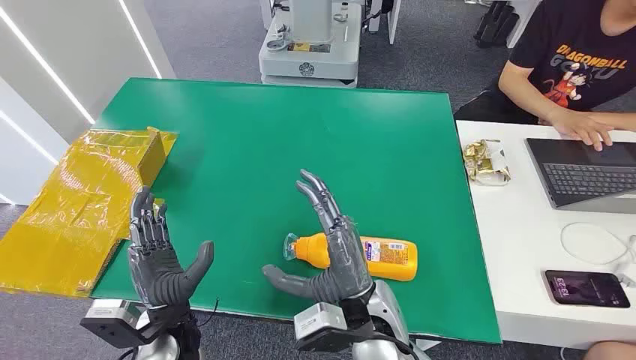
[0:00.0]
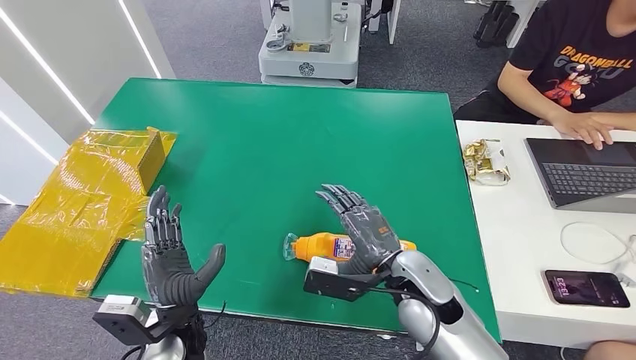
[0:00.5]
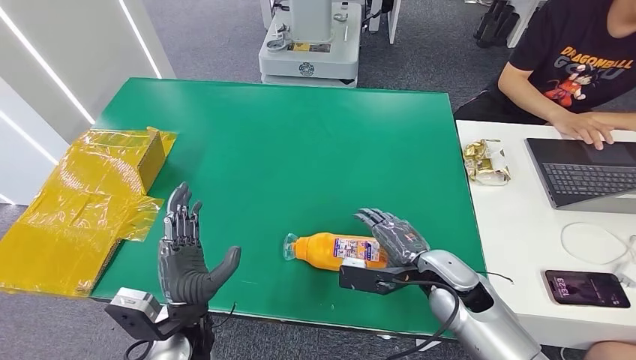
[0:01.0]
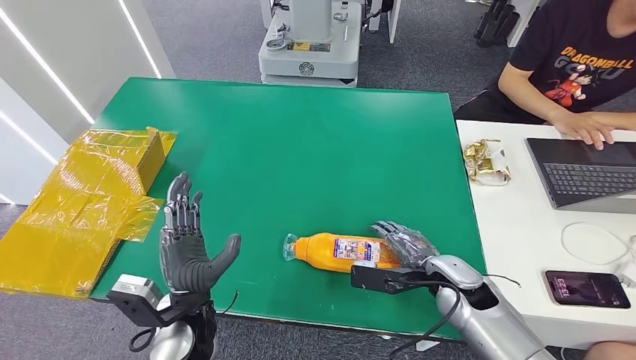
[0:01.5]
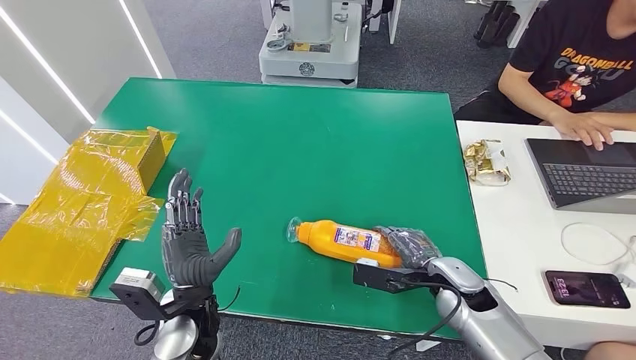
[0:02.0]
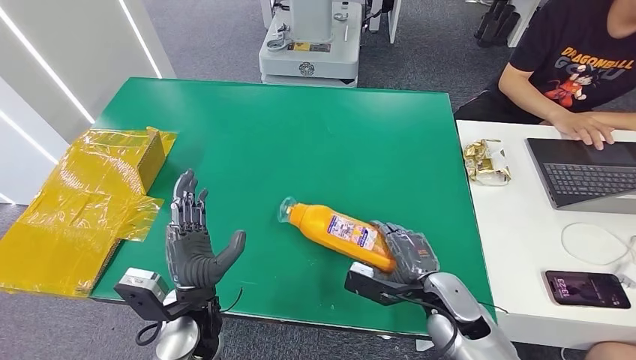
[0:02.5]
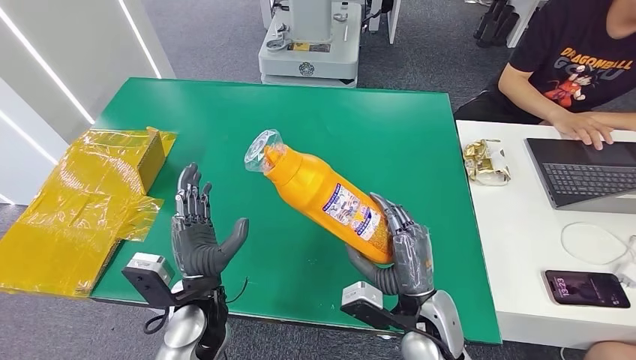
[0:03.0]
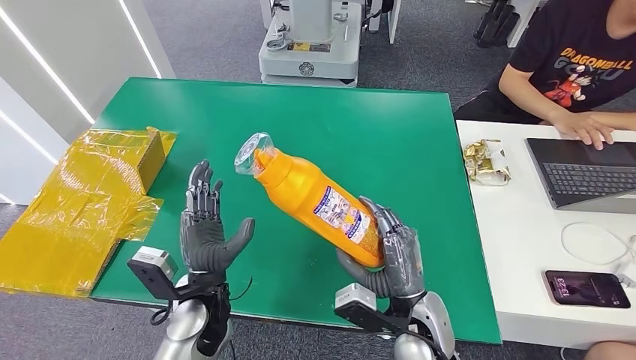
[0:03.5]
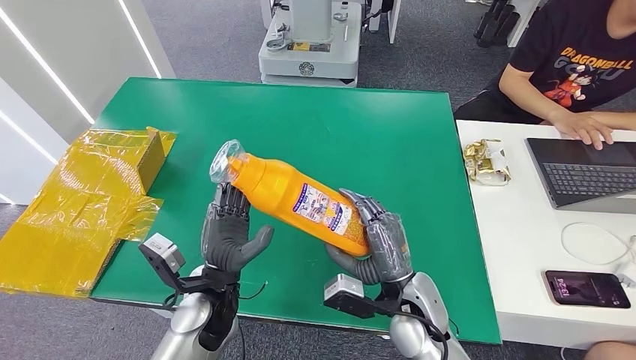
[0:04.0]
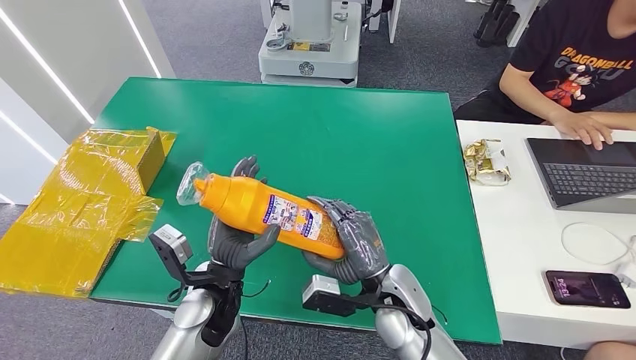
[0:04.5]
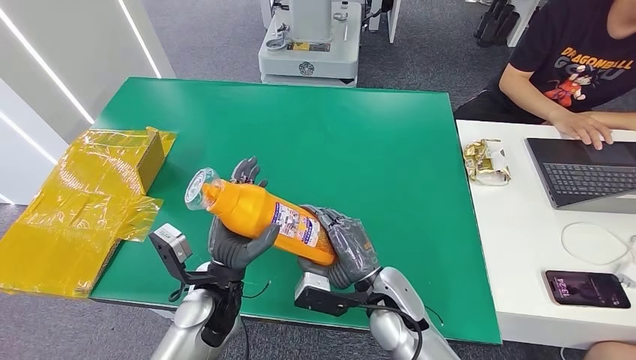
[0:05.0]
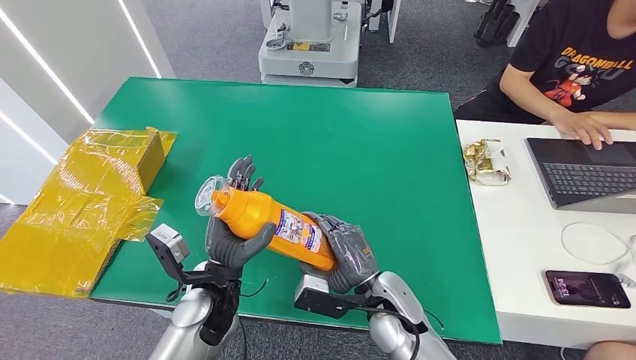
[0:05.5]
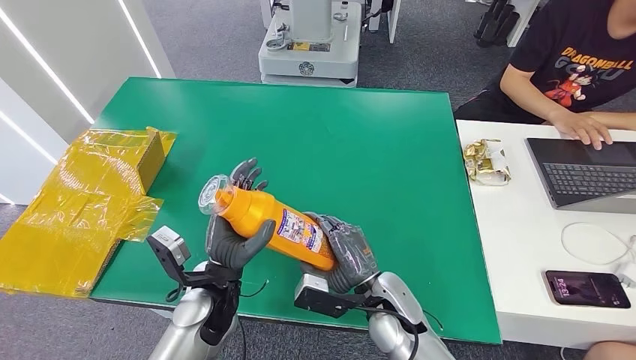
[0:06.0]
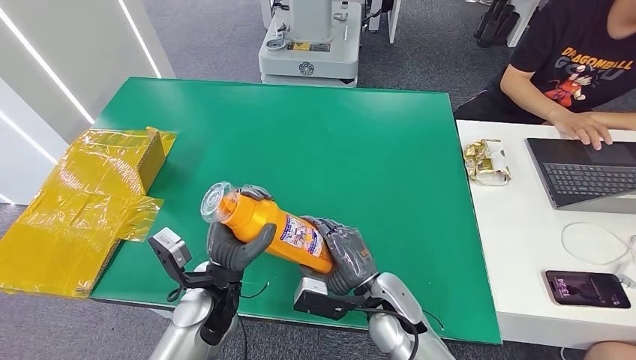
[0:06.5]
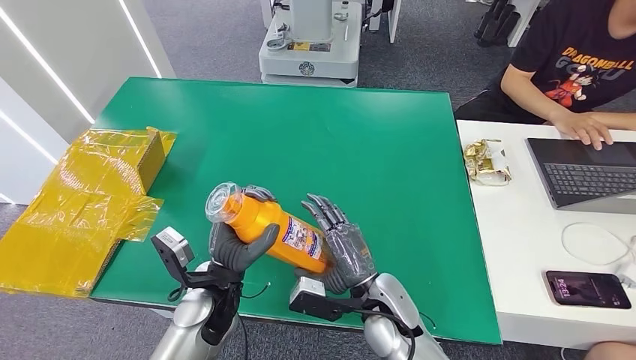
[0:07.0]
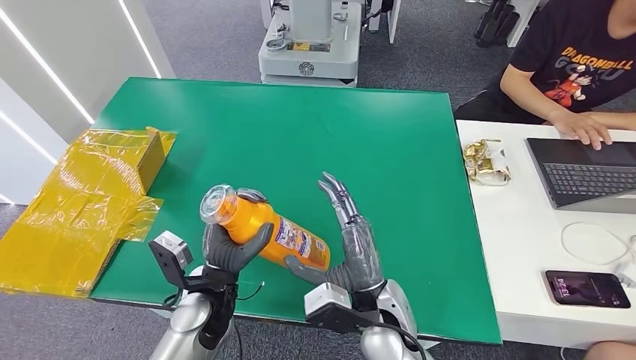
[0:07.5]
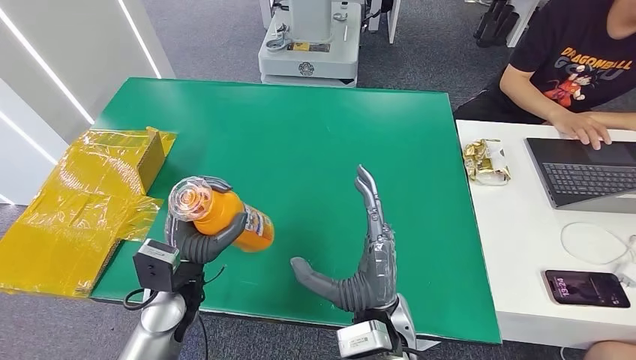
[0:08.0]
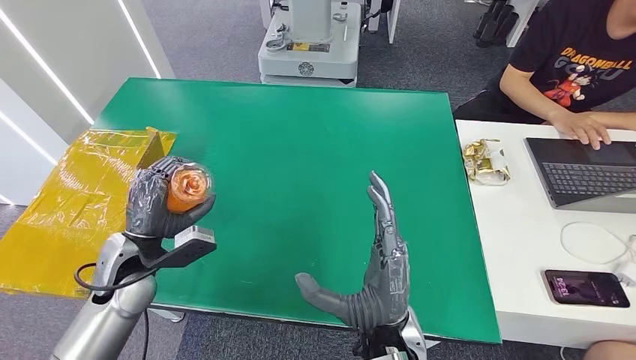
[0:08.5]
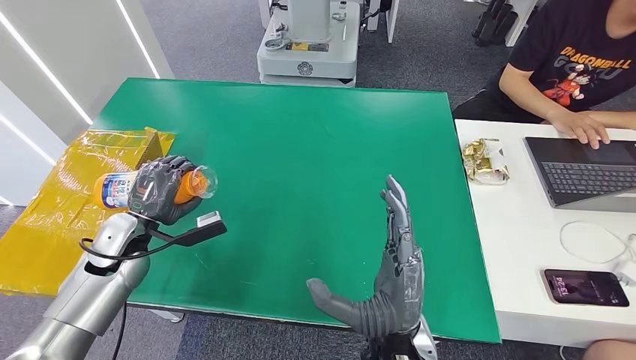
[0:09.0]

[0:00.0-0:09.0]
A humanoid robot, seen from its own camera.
Step, 0.0 to 3.5 s: Pick up the bottle from the table.
2.0 to 4.5 s: The right hand heads to the left, covering some 10 cm.
4.5 to 7.0 s: The hands make only small movements.

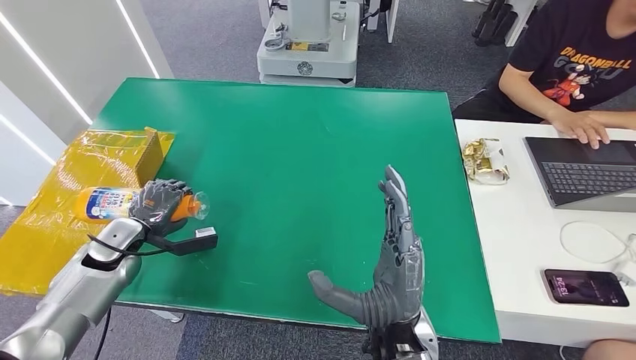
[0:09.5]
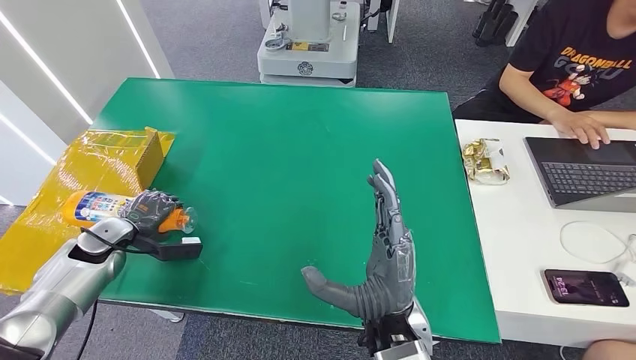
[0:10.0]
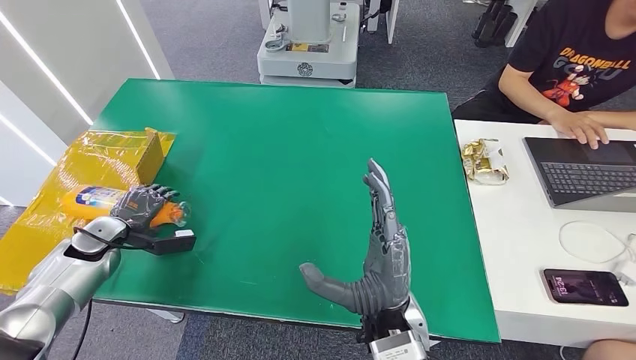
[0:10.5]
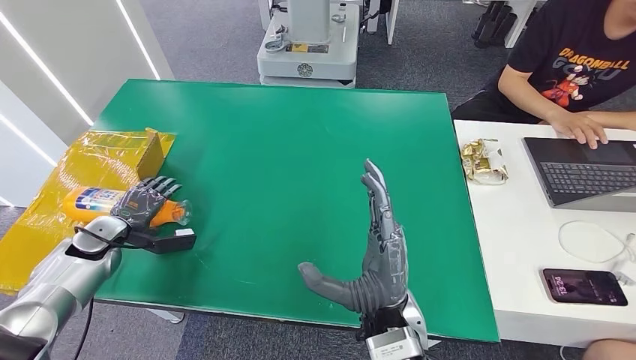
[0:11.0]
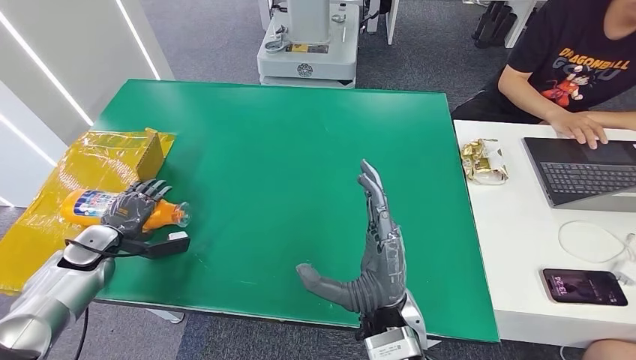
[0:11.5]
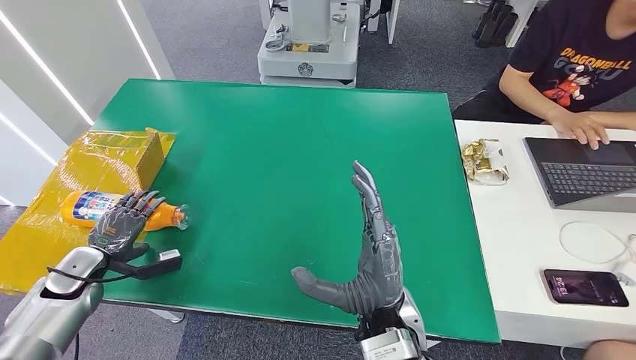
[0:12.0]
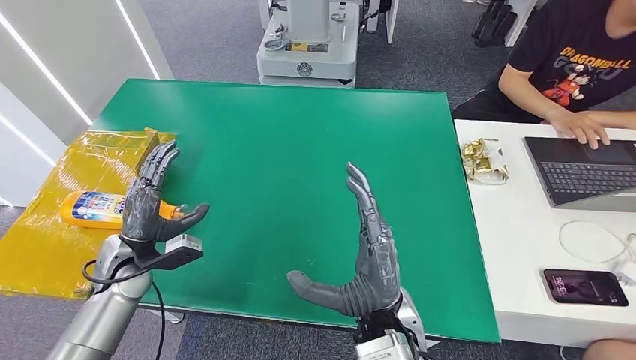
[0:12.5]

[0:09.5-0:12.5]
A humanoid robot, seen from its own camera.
Step, 9.5 to 12.5 s: Turn the bottle to the front side.
9.5 to 11.0 s: The left hand travels to the left by roughly 5 cm.
11.0 to 12.5 s: The left hand shifts roughly 10 cm to the right.

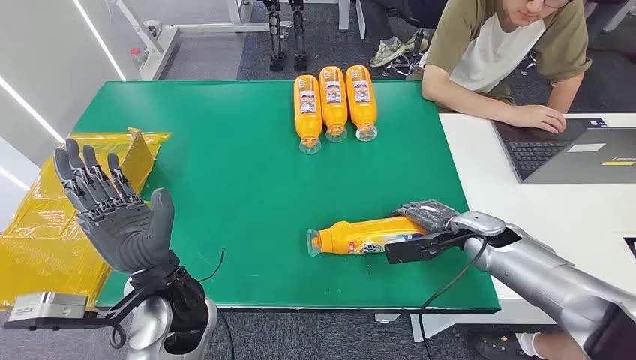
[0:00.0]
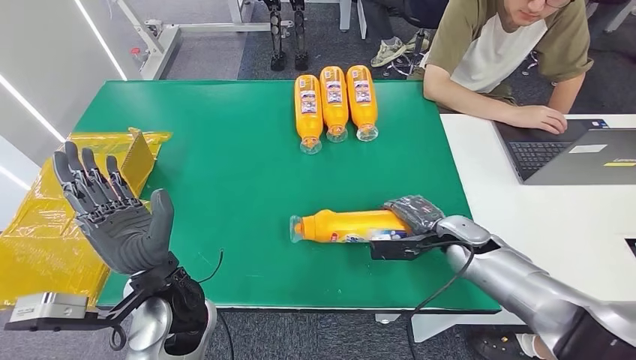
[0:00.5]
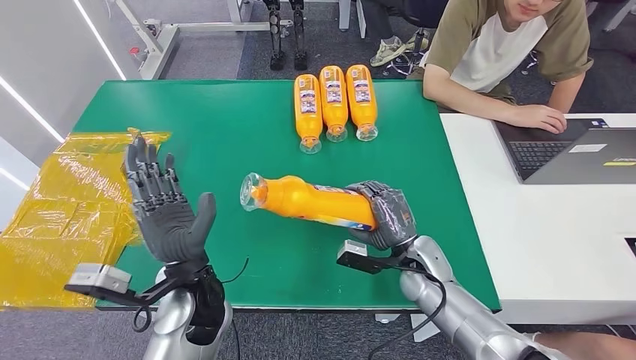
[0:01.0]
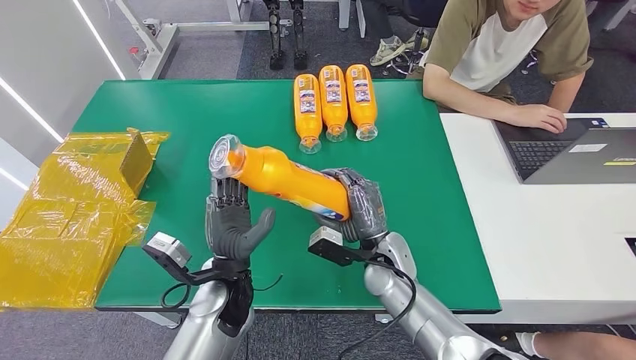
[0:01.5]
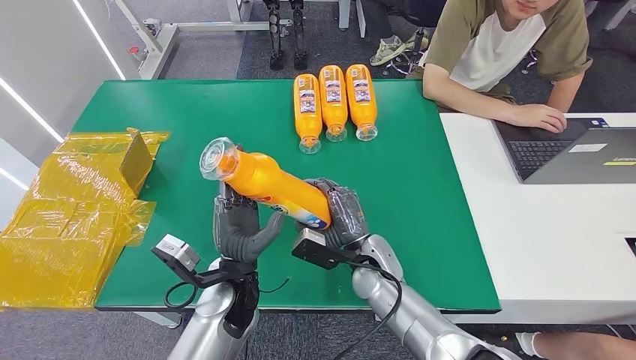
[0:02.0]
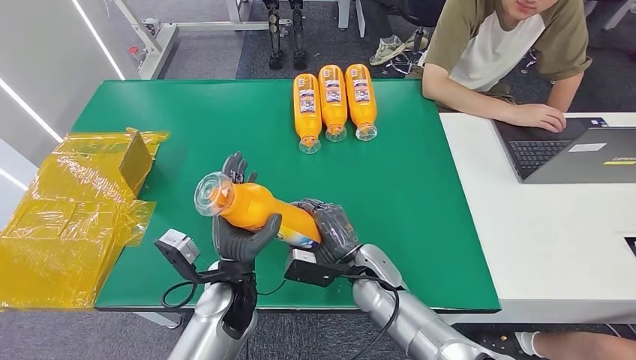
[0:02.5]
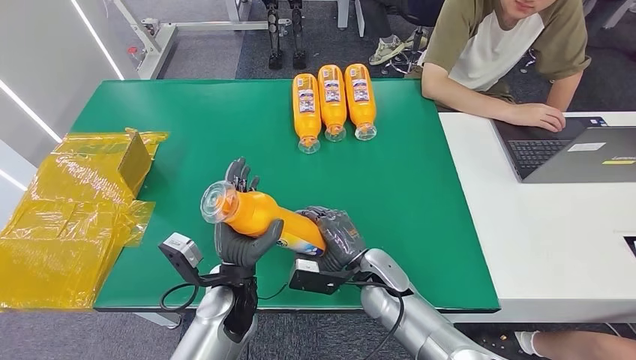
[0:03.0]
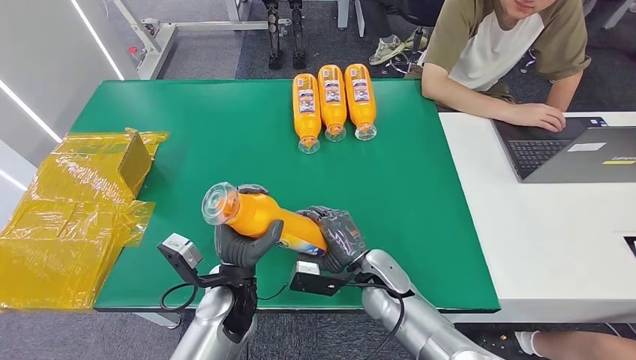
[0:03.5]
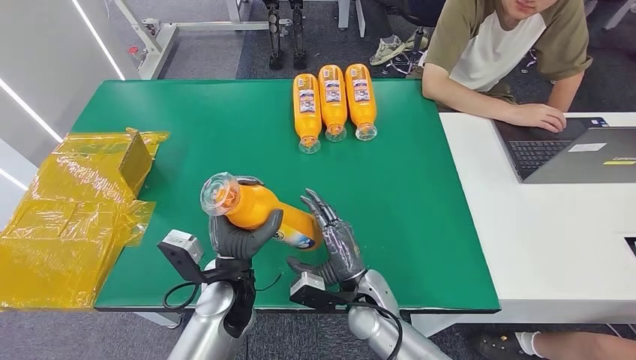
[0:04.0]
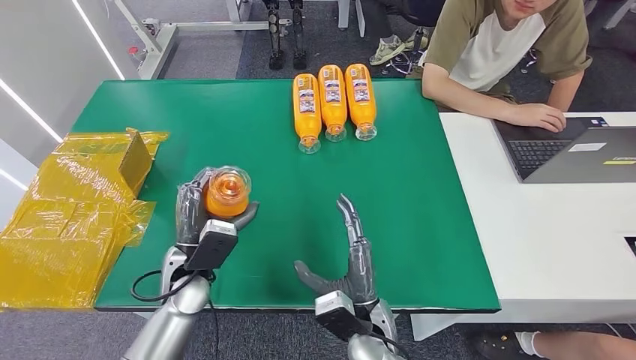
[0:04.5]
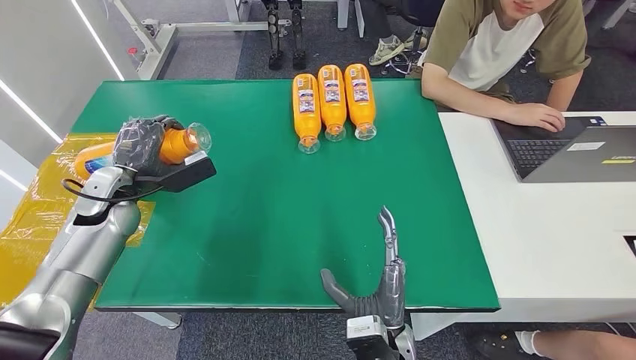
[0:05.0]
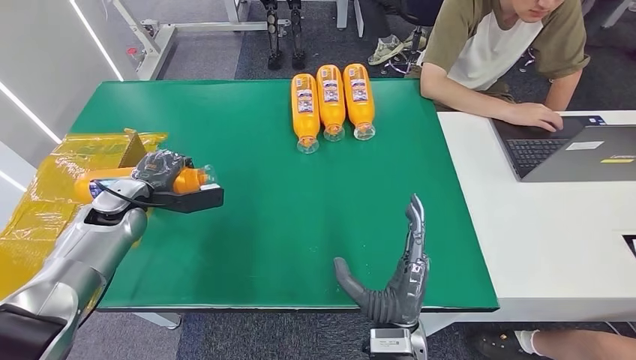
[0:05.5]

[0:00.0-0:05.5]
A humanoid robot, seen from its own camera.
Step, 0.0 to 2.5 s: Pick up the bottle from the table.
Step, 3.0 to 5.5 s: Turn the bottle to the front side.
2.0 to 3.5 s: There are only small adjustments of the hands.
3.5 to 5.5 s: The right hand moves backward and upward, approximately 15 cm; the left hand heads to the left and forward, covering approximately 35 cm.

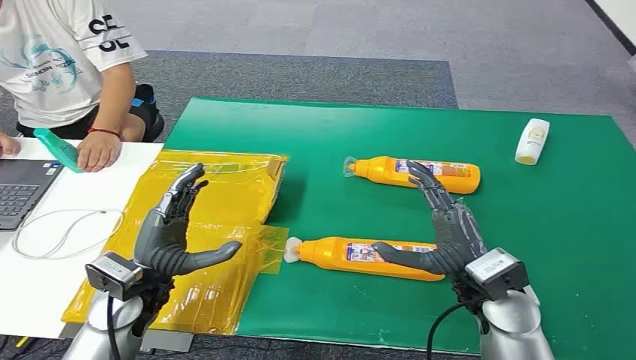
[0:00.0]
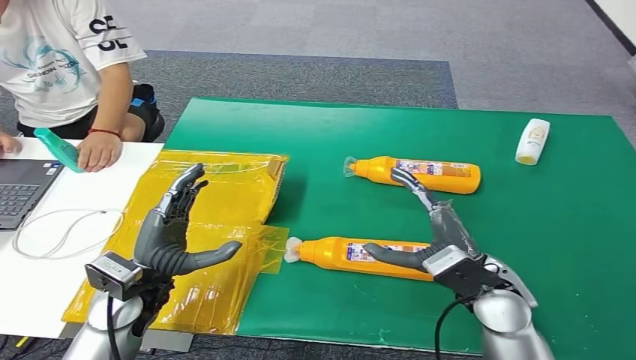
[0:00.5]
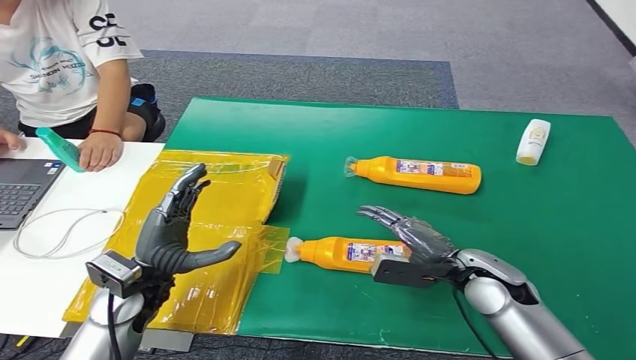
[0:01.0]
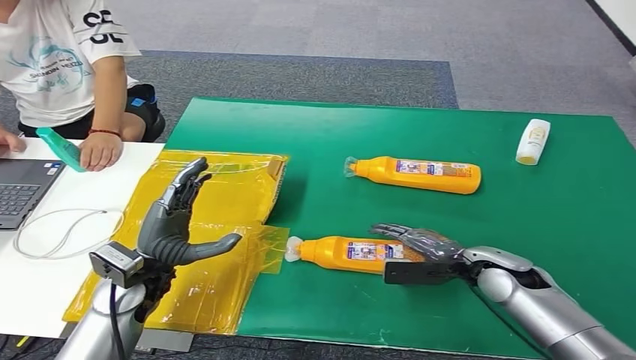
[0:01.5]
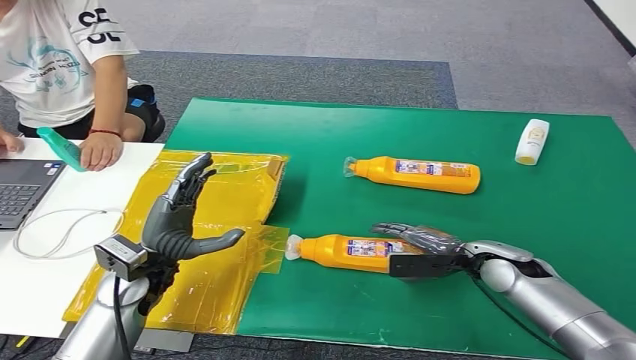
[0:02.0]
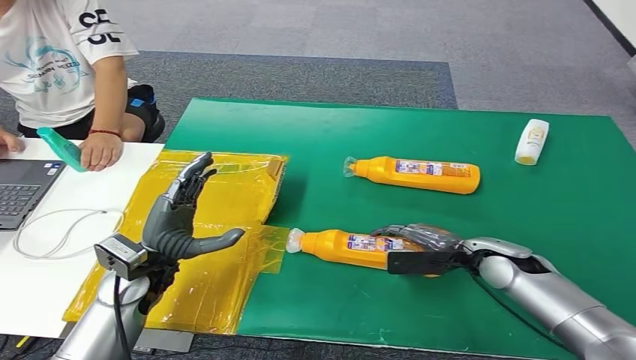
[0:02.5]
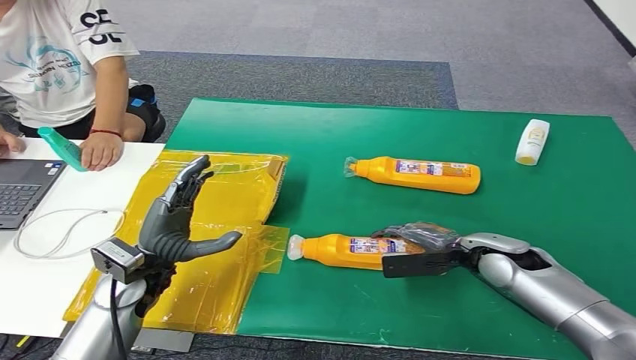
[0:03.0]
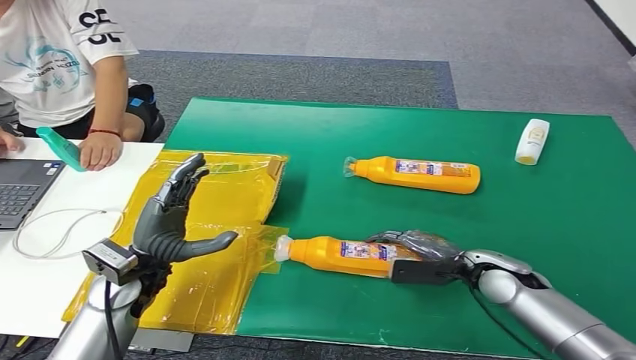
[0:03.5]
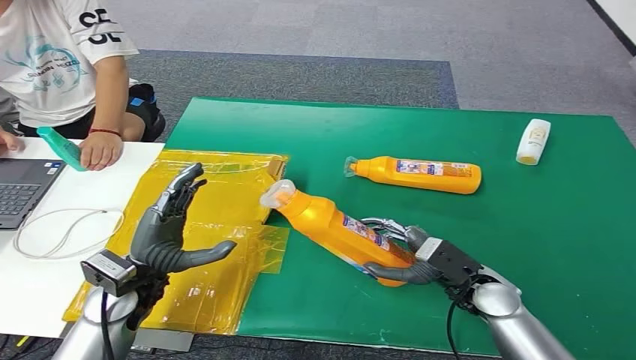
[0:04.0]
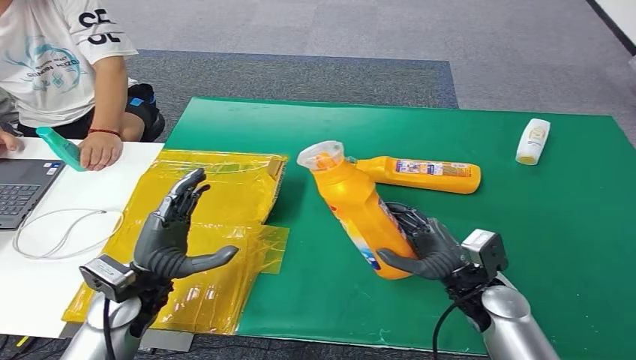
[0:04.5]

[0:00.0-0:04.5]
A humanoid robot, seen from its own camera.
2.0 to 4.5 s: The right hand heads backward, covering roughly 5 cm.
